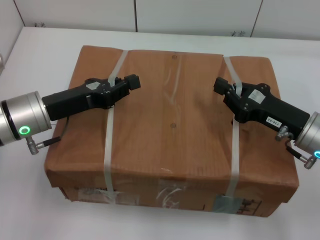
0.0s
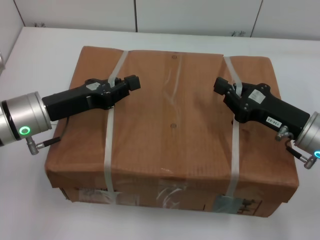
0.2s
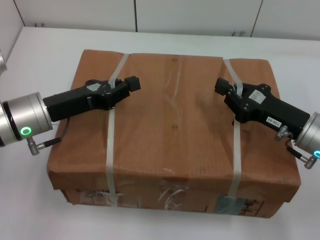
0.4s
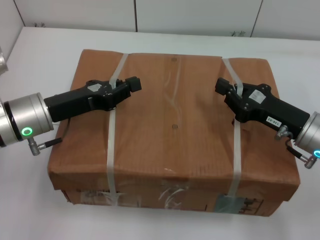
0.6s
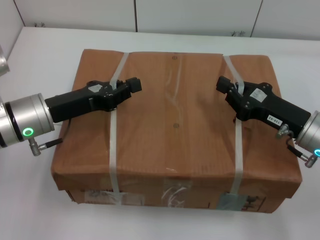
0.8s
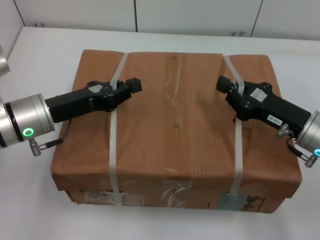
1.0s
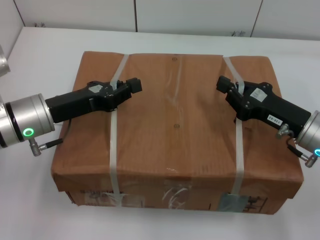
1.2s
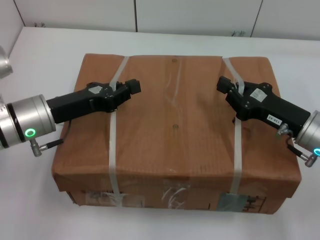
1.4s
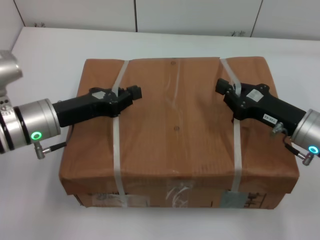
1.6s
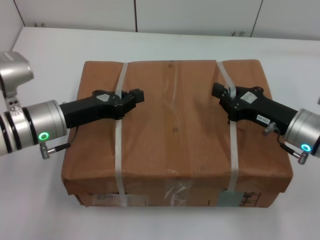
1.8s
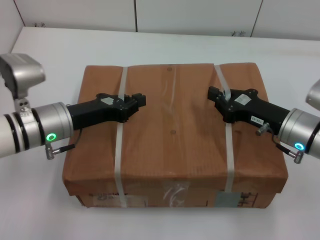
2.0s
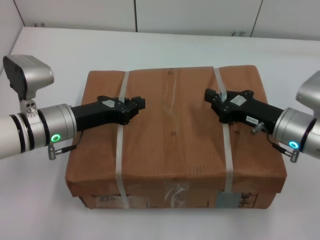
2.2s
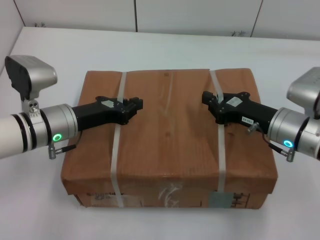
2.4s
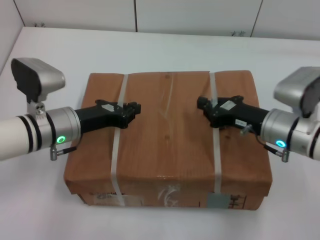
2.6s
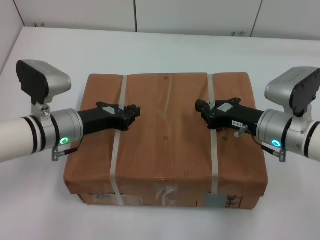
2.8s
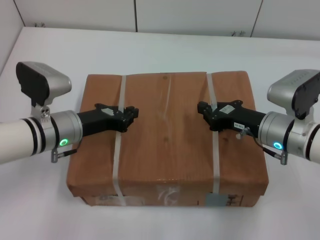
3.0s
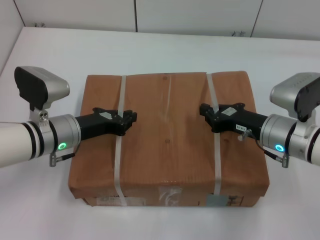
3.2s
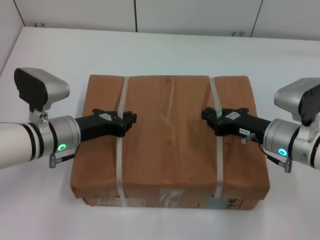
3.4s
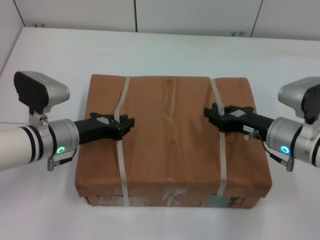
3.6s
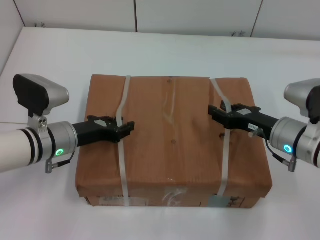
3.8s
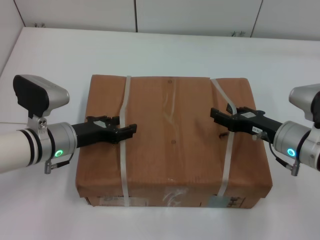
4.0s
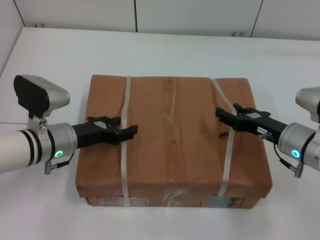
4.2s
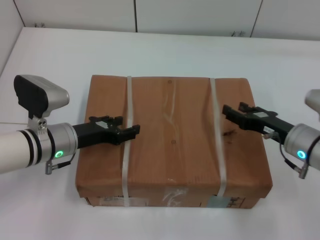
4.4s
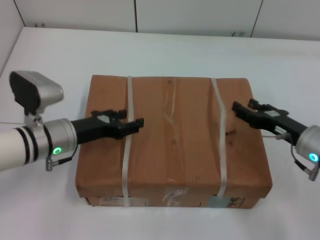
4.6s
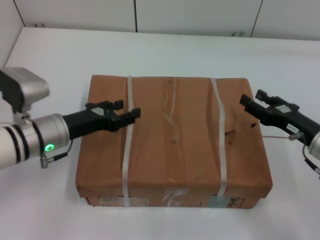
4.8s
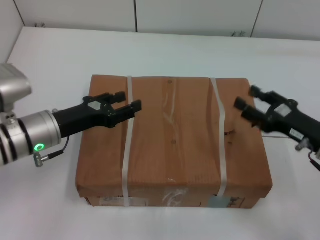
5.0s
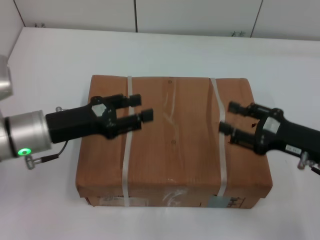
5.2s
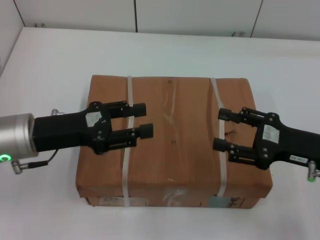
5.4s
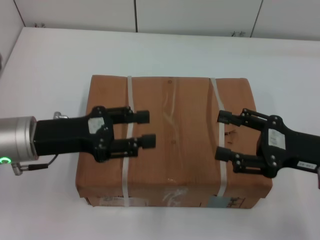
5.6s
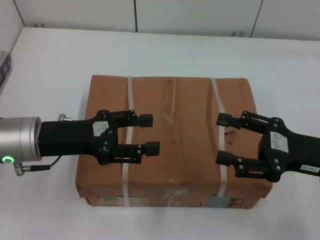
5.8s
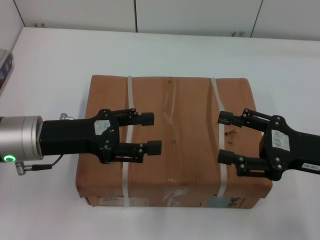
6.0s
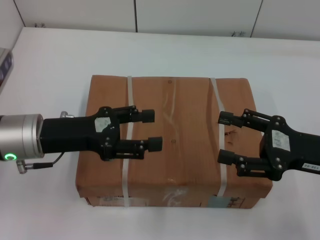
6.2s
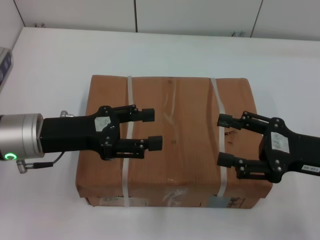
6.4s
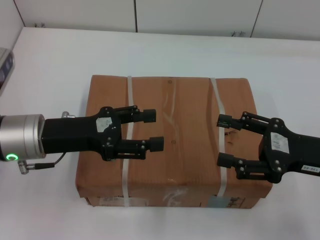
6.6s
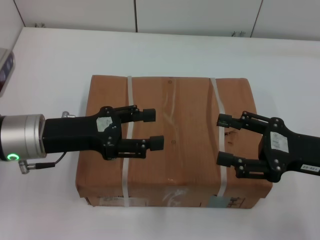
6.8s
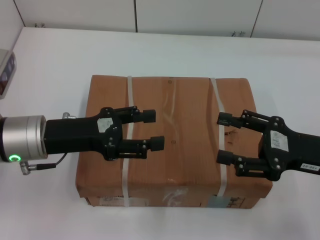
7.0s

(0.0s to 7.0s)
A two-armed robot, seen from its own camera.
Task of the whole recording: place the box on the table with both arms.
Step, 0.0s - 3.4s: Place the box on the table with left gripper.
Step, 0.0s - 3.4s: Place the box on the table with right gripper.
Step, 3.6s - 4.2s: Loosen the box on the table with left gripper.
Step, 3.6s - 4.2s: Loosen the box on the table with right gripper.
0.0s - 1.4s: The two grippers keep their place.
1.4s - 2.8s: The left gripper moves about 5 cm, while the right gripper moves roughly 5 cm.
2.8s - 4.2s: The right gripper opens up; the left gripper opens its fingers.
4.2s - 5.6s: The left gripper is displaced upward by roughly 10 cm. Meanwhile the right gripper moves upward and backward, some 10 cm.
5.6s - 7.0s: Both grippers stay about where they are.
